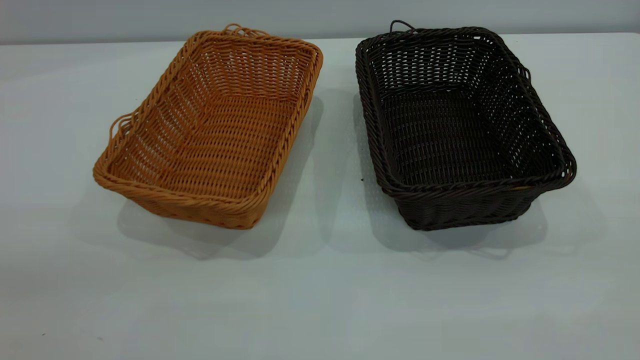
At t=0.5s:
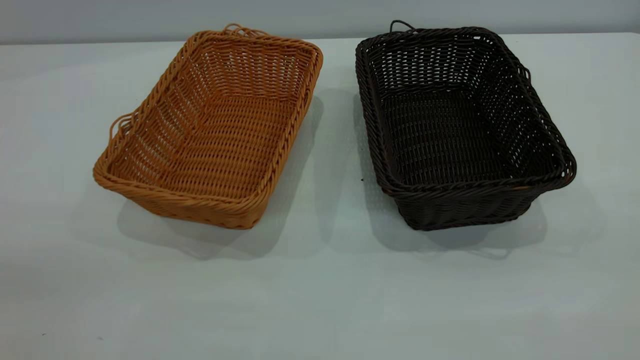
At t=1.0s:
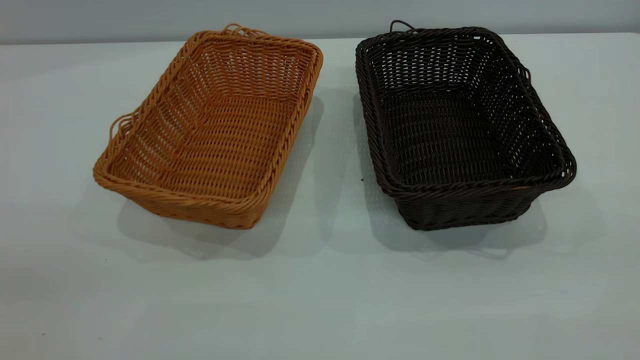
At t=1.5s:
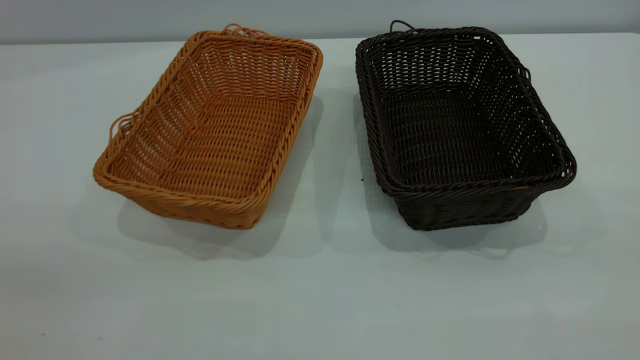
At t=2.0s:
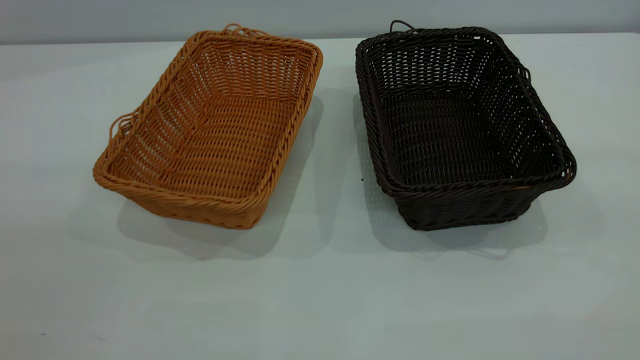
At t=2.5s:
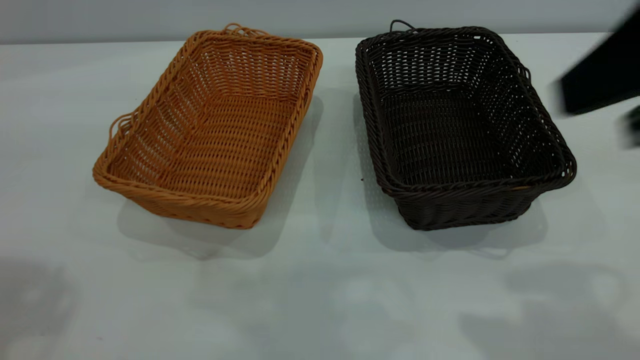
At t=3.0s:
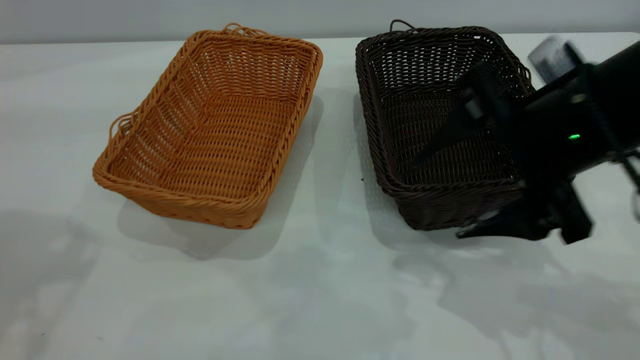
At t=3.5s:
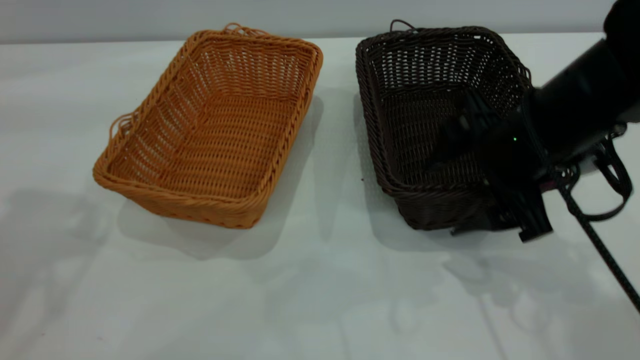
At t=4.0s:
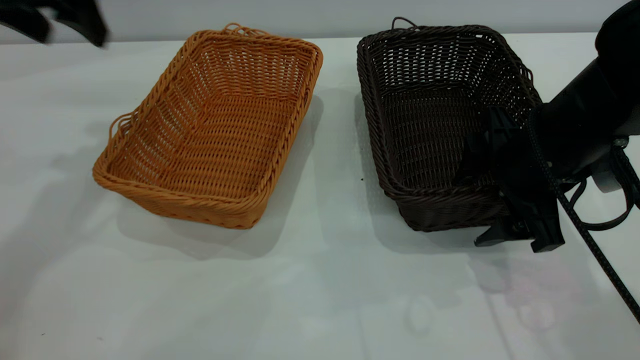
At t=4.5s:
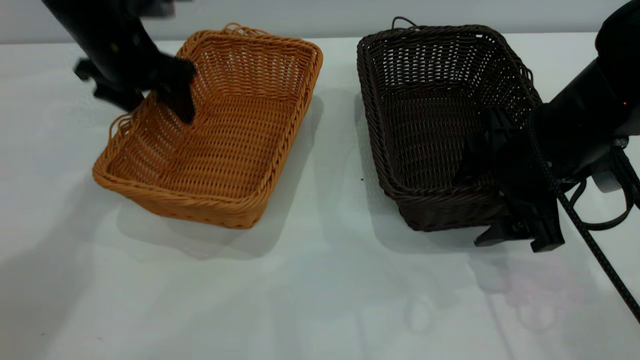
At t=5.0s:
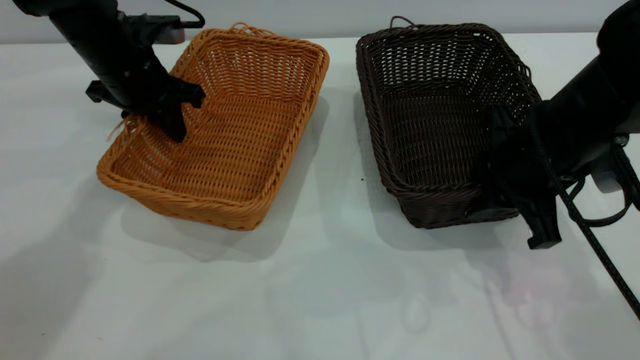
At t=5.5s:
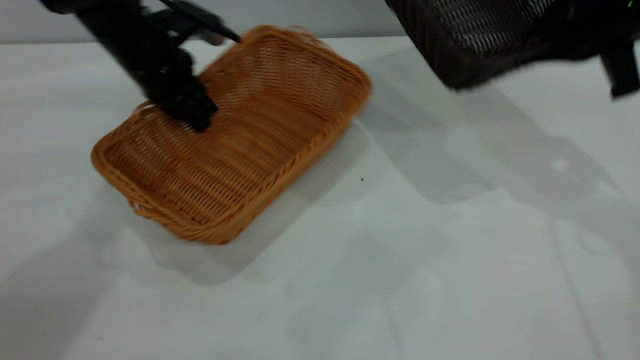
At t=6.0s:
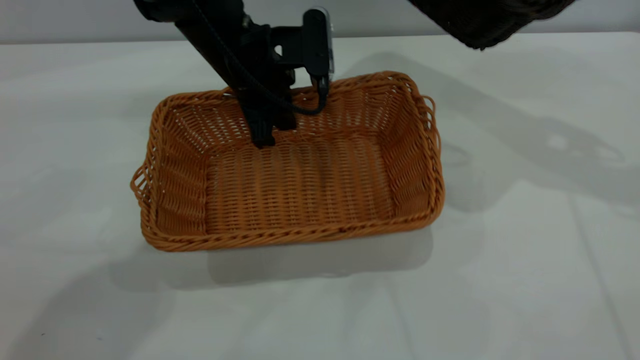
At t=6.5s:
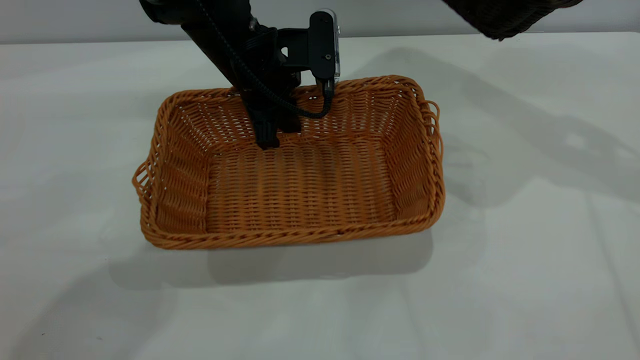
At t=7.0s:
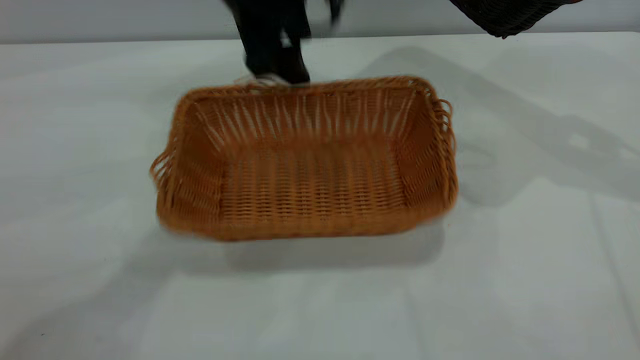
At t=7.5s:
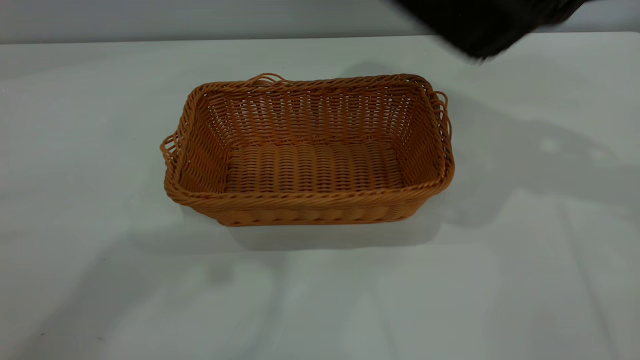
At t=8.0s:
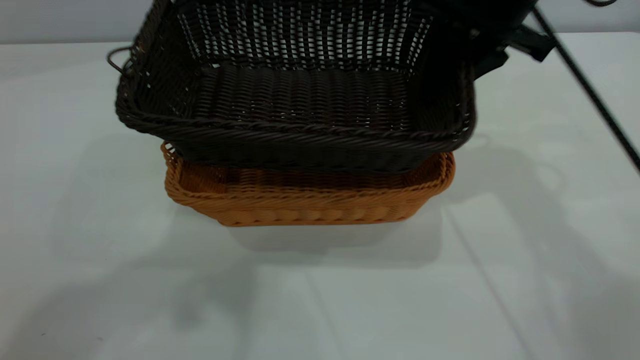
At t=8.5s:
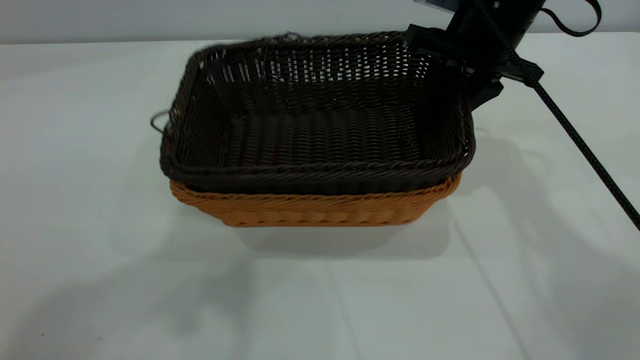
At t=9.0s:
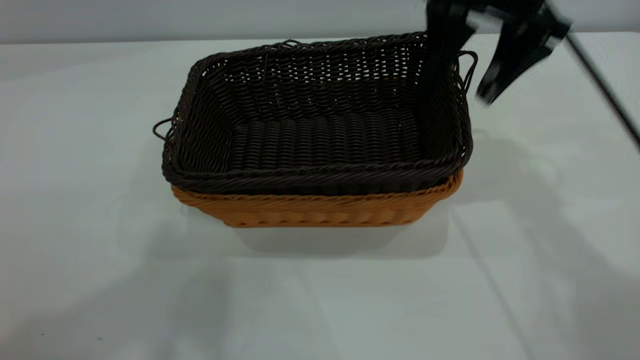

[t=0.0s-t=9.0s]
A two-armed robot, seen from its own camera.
Task of the whole recording: the left gripper grasp the brown basket and place it in the center of the table, the right gripper grasp the black basket and place it inside the brown one.
Step, t=0.0s to t=5.0s: Pick up the light basket with the right gripper.
Step, t=5.5s to t=6.5s: Place the light-colored basket in the center.
Step, t=7.5s to t=9.0s: Place the dark basket on top of the light basket.
t=2.0s to t=4.5s: The left gripper moves forward and downward, approximately 50 cm, while the right gripper moves downward and forward, roughly 35 cm.
t=4.5s to t=7.0s: The right gripper heads upward, to the right and forward, covering some 20 cm, and closes. The left gripper travels to the right and upward by about 20 cm, and closes, then opens again.
t=7.0s to t=9.0s: The left gripper moves upward and backward, approximately 35 cm. Meanwhile the right gripper is displaced to the left by about 15 cm, and opens up.
